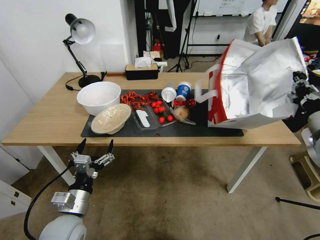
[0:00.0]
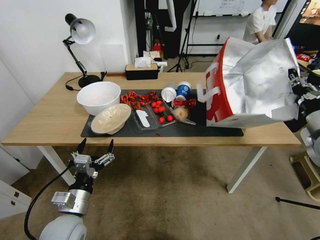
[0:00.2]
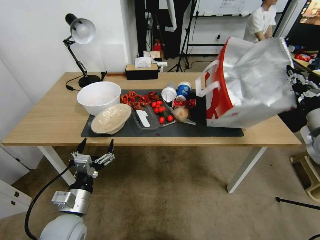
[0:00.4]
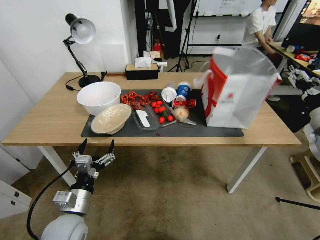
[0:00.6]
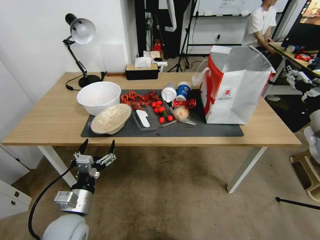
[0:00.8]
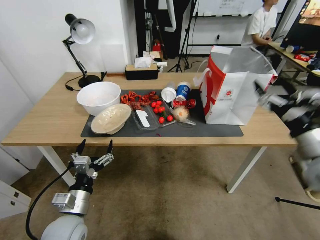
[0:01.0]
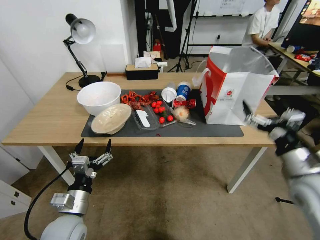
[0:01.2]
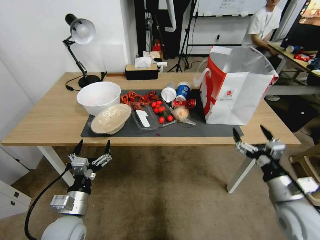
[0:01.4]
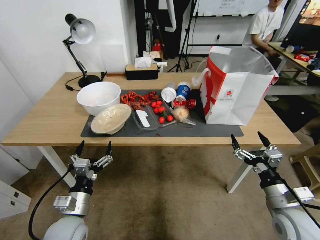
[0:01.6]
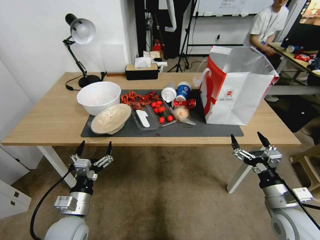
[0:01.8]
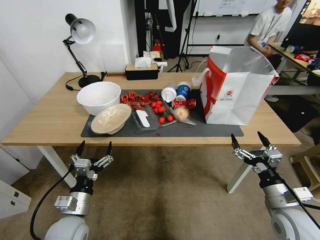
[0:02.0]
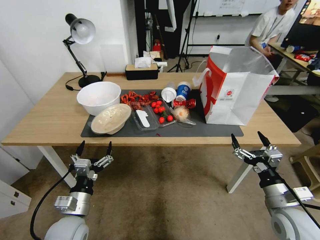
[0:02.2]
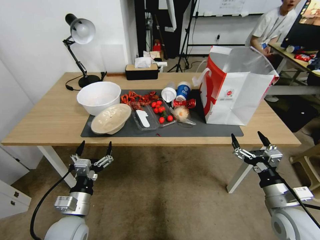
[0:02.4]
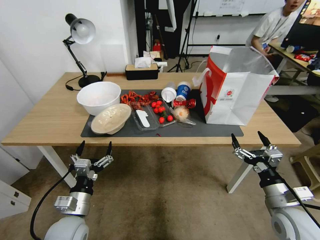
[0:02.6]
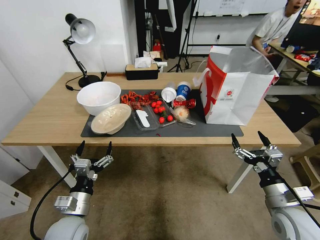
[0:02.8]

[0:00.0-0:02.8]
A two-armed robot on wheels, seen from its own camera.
Task of the whole recording: Pick up the food delivery bag from the floor and place it on the table.
0:00.0 to 0:01.4: The right gripper travels downward, backward and to the left by roughly 20 cm, and opens.
0:01.4 to 0:02.8: The grippers make only small movements.

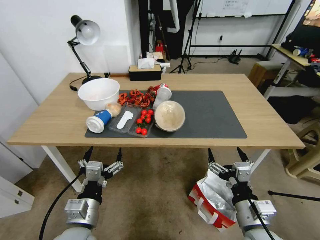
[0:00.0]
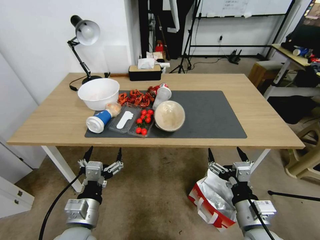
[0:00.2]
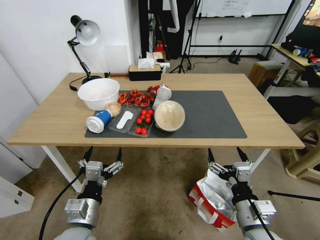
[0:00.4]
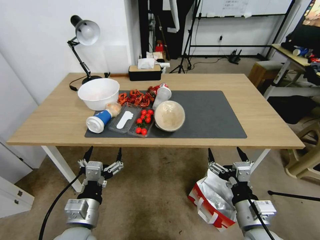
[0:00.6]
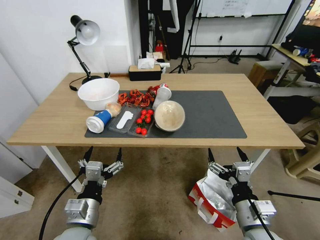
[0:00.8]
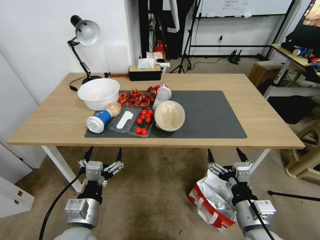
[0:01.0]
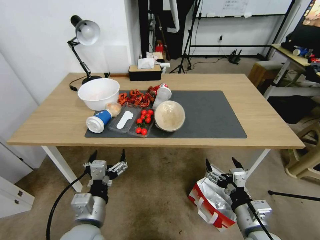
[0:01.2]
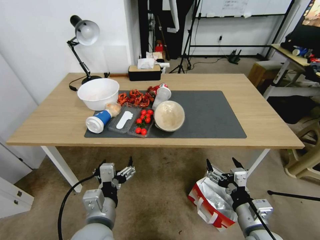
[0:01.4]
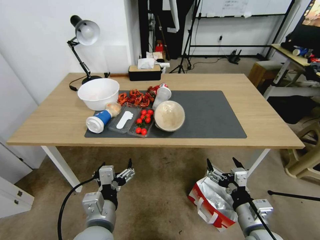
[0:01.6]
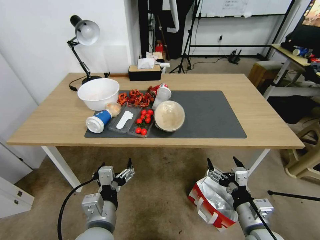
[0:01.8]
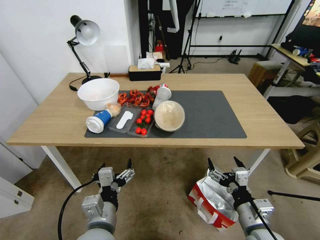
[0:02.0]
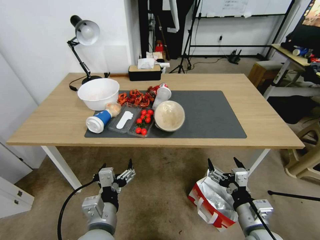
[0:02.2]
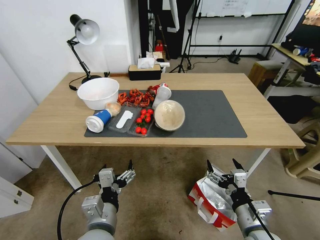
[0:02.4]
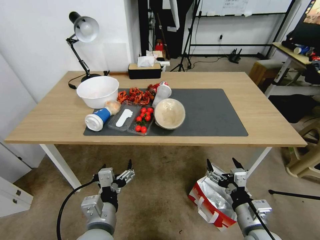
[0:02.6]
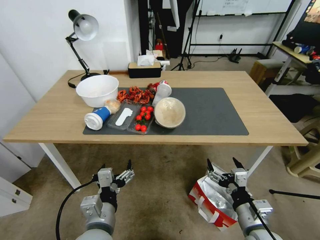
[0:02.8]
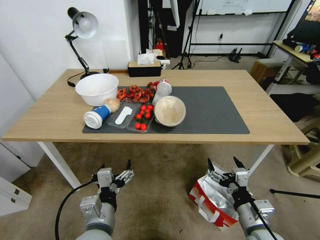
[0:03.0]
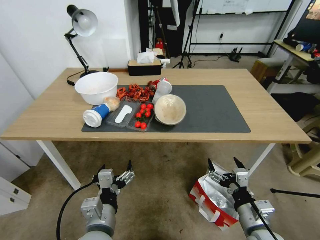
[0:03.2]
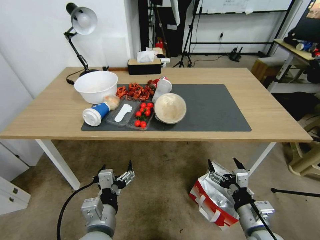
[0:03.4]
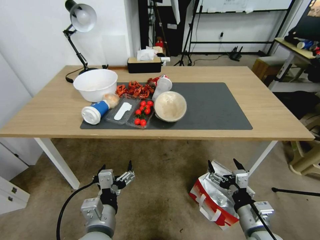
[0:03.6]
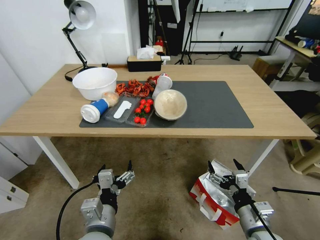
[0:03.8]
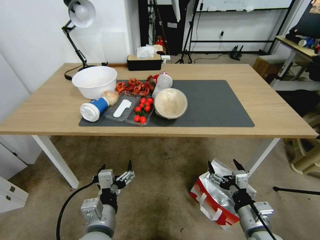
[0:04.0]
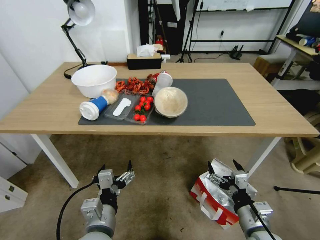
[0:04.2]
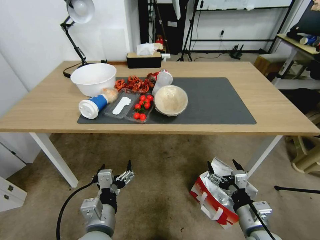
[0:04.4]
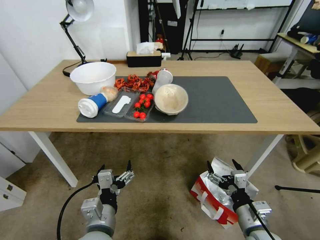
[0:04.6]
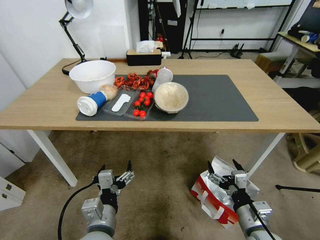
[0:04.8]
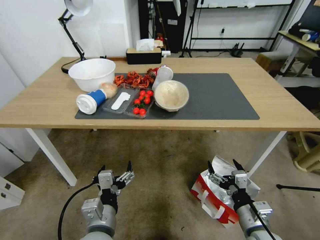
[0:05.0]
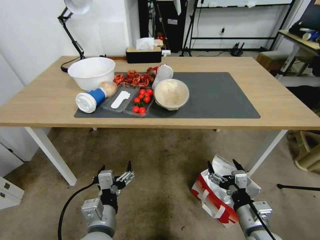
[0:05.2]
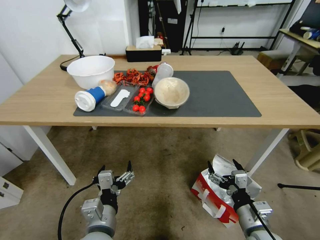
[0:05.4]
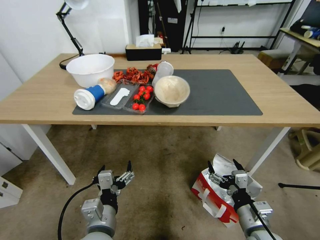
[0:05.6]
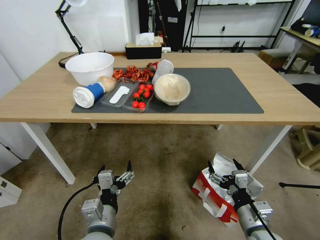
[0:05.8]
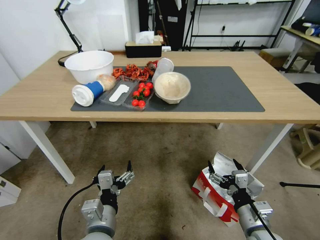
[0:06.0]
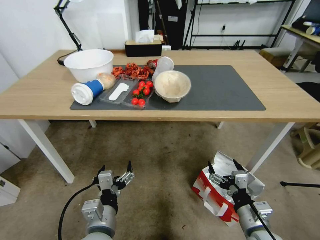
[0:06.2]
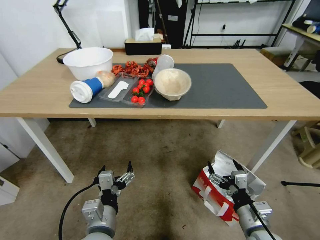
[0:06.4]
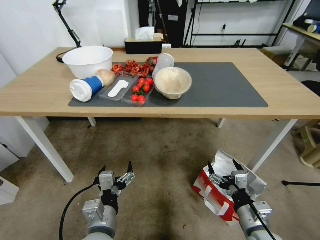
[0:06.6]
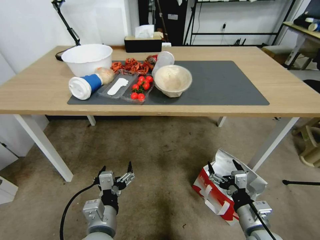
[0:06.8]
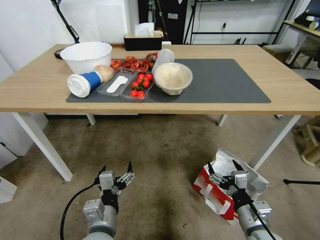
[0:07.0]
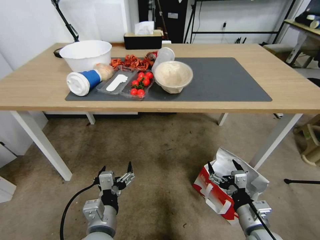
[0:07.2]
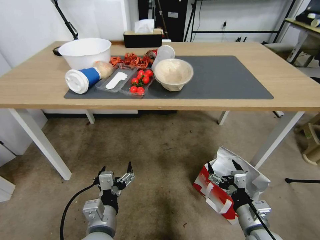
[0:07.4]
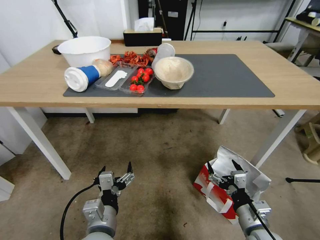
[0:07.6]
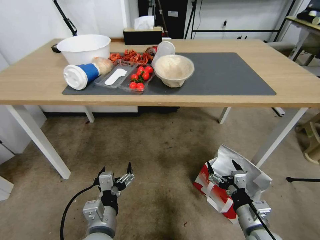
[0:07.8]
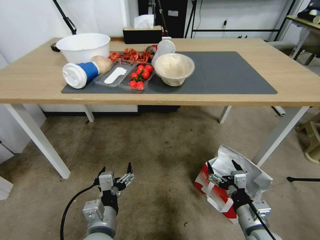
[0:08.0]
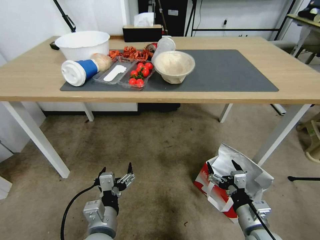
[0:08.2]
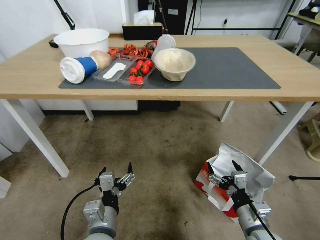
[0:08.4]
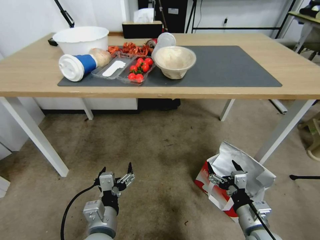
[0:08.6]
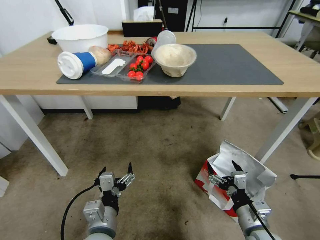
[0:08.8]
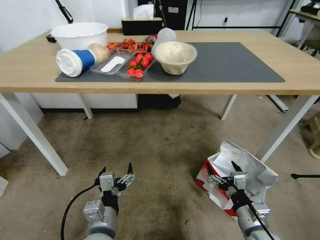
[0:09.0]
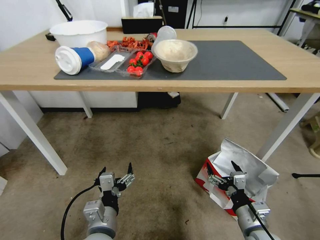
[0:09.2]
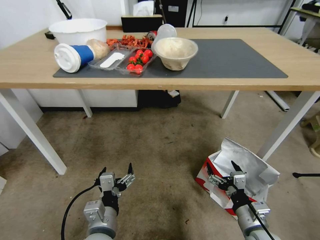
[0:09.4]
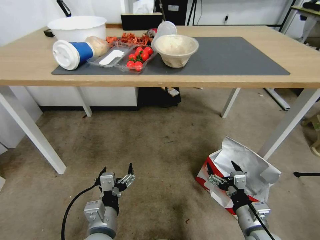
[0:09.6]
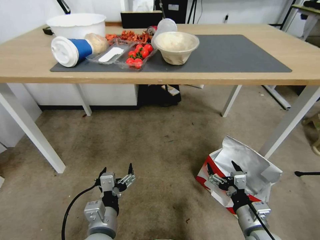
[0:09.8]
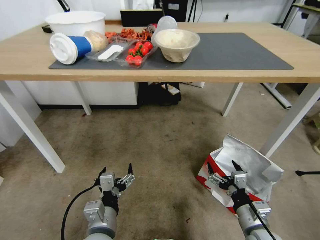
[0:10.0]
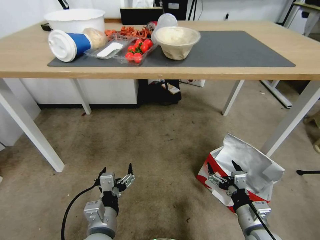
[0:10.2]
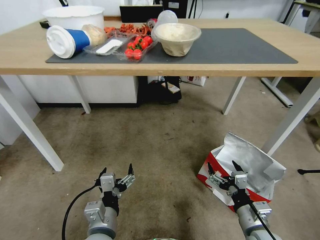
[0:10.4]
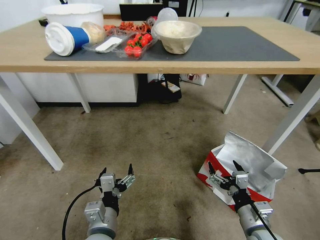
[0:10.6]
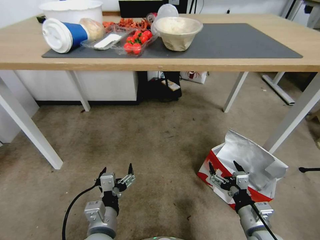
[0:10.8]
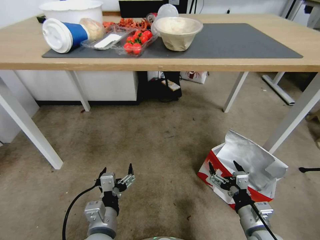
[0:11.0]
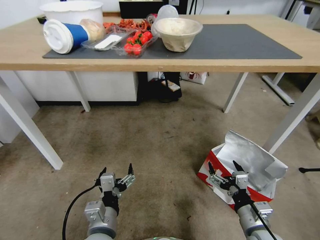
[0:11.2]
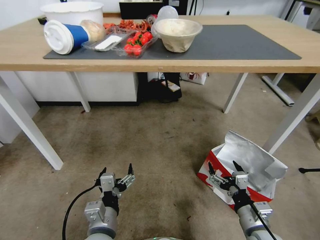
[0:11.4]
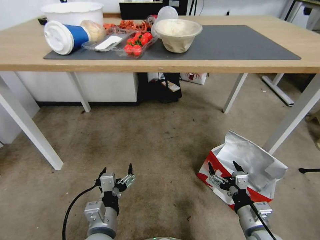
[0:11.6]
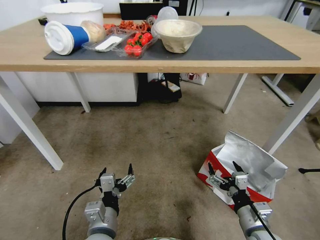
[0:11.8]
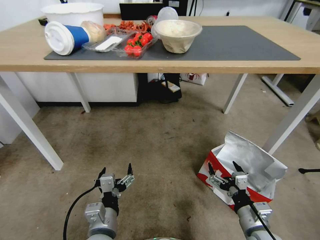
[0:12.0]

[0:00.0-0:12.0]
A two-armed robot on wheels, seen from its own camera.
Task of the whole recording: Pick up the food delivery bag from the floor and place it on the table.
0:10.4 to 0:12.0: The two grippers keep their place.

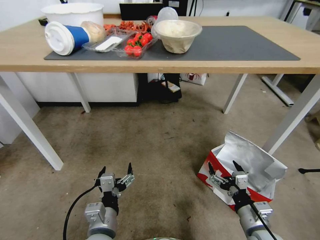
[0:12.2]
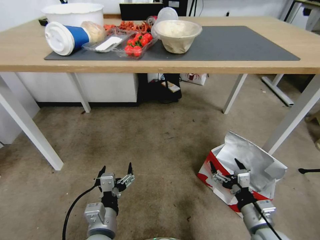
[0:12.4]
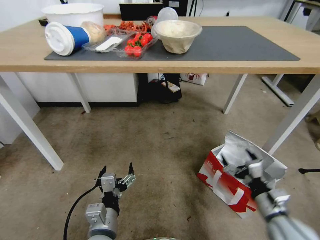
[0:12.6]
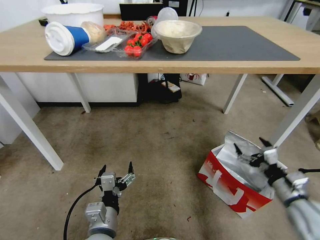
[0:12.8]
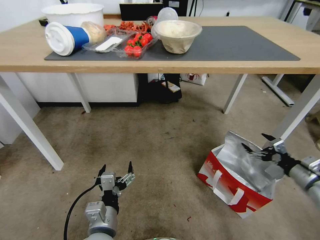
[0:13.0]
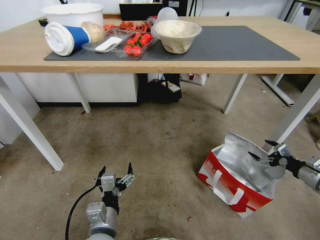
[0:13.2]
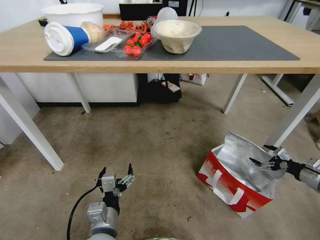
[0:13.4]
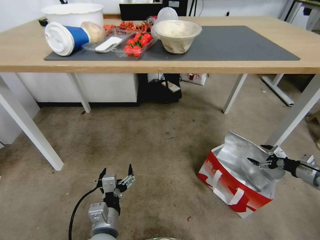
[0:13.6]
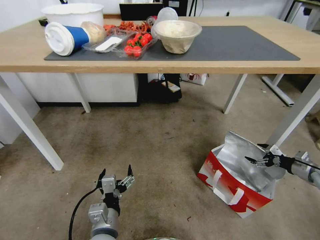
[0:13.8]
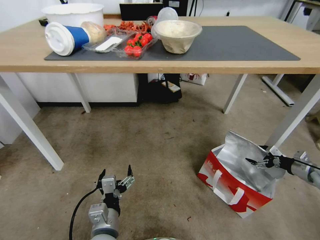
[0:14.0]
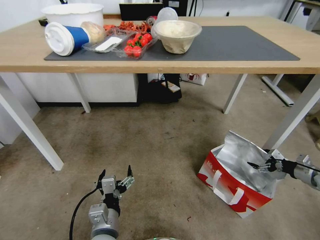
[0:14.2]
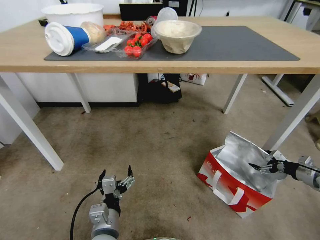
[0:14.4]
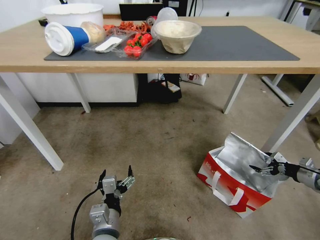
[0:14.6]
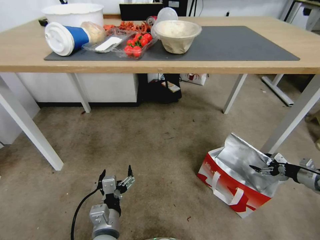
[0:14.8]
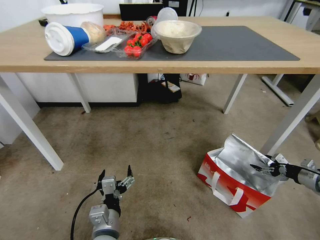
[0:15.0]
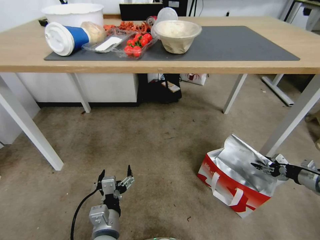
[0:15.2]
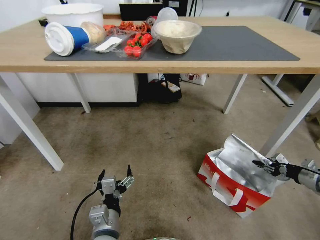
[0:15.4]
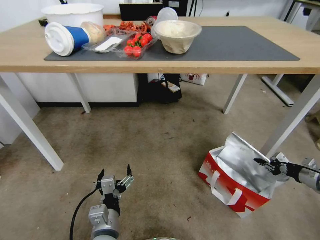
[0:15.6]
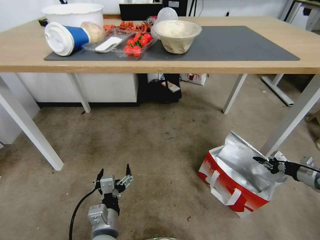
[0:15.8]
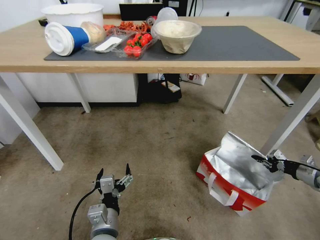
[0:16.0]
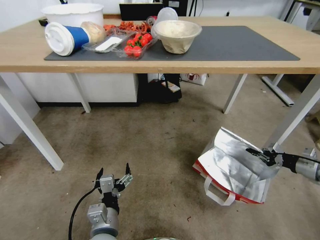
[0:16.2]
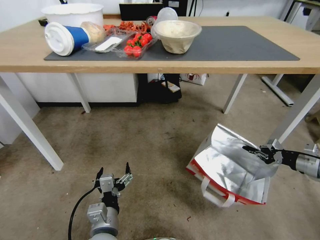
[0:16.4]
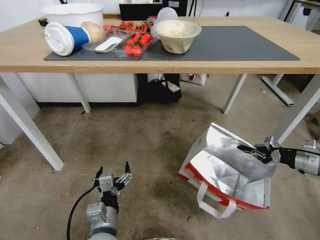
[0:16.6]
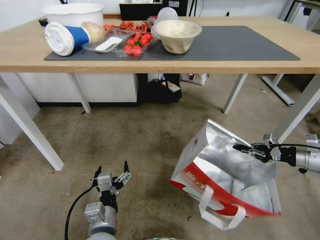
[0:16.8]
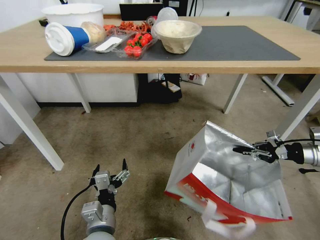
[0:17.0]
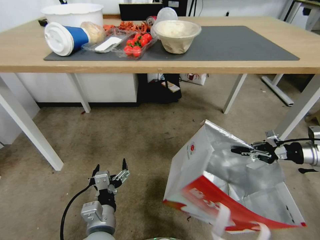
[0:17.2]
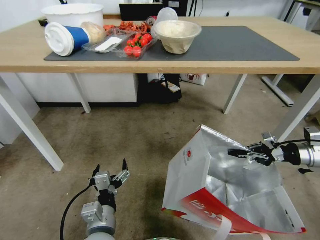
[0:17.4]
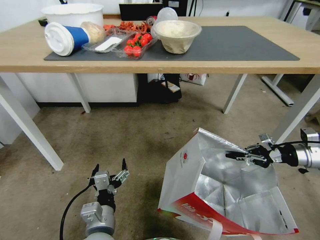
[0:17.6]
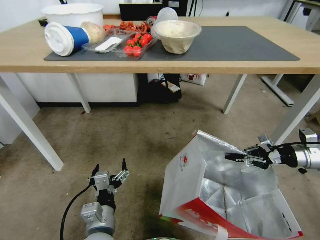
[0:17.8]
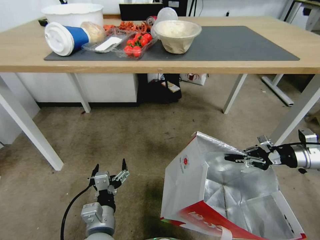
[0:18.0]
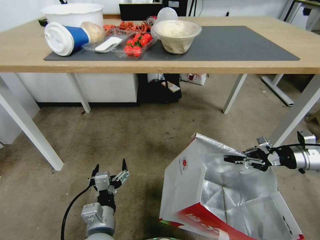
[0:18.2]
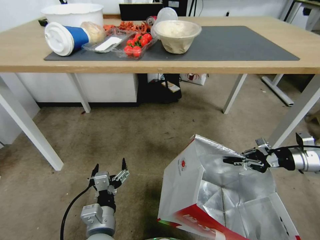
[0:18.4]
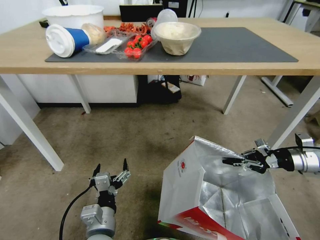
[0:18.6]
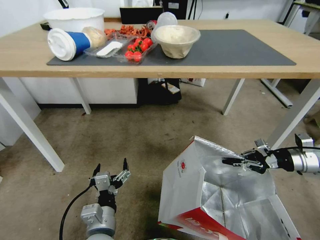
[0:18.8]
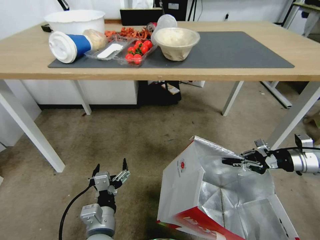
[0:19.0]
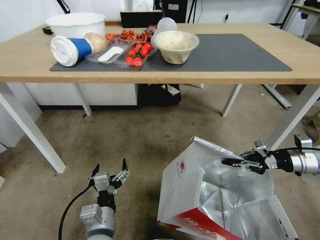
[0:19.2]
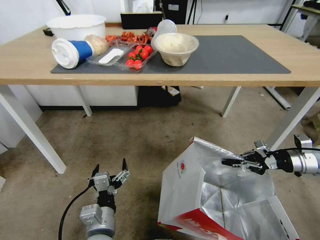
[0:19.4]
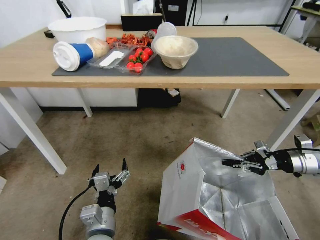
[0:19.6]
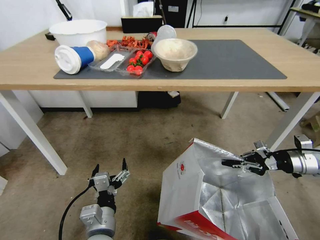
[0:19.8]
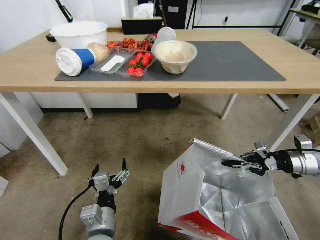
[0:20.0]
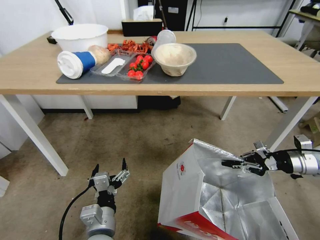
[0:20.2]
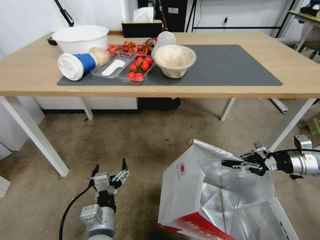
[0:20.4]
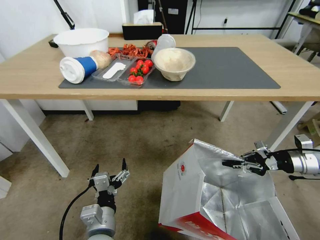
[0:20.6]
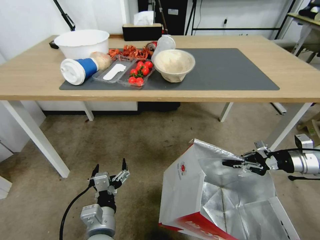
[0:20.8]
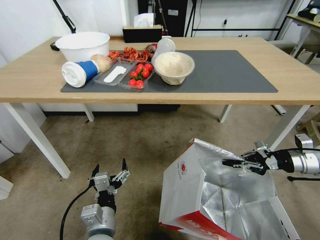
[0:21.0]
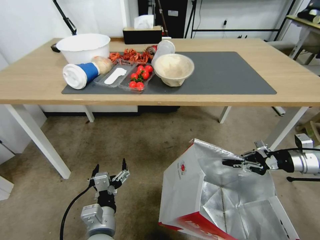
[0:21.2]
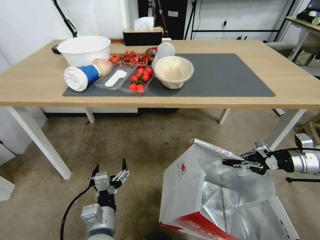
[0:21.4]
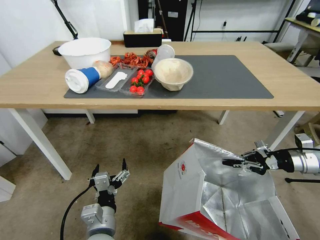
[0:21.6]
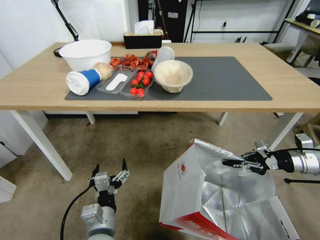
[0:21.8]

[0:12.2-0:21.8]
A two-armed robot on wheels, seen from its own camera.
Task of the whole recording: Pick up the food delivery bag from the floor and place it on the table.
0:12.2 to 0:13.8: The right gripper moves to the right and forward, roughly 35 cm.
0:13.8 to 0:15.4: The right gripper closes its fingers.
0:15.4 to 0:17.0: The right gripper moves upward and to the left, some 15 cm.
